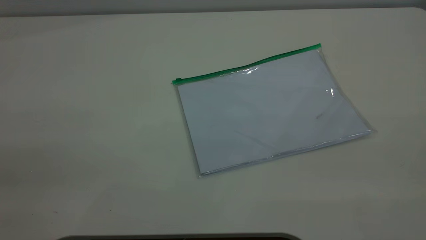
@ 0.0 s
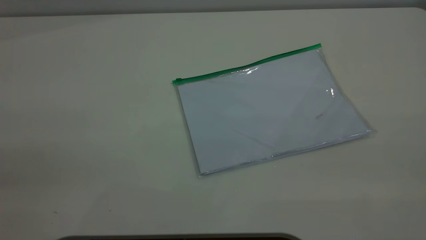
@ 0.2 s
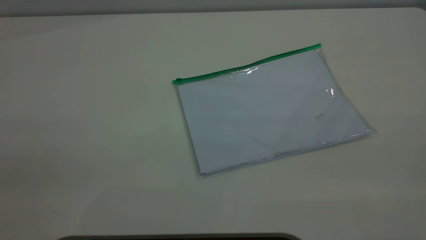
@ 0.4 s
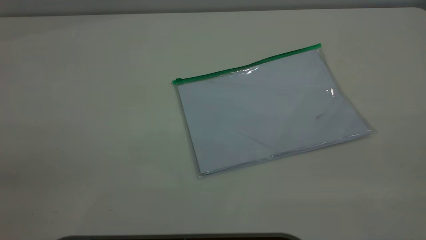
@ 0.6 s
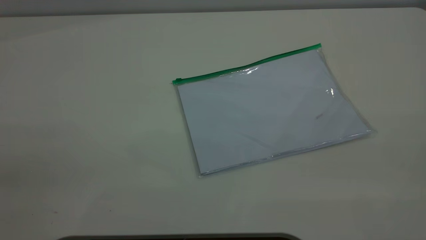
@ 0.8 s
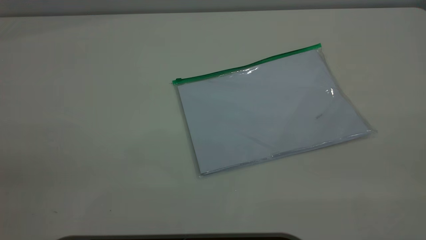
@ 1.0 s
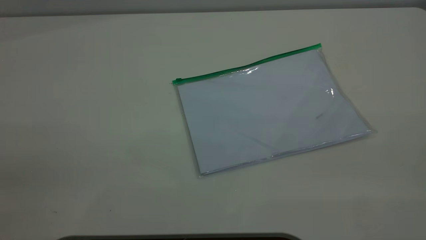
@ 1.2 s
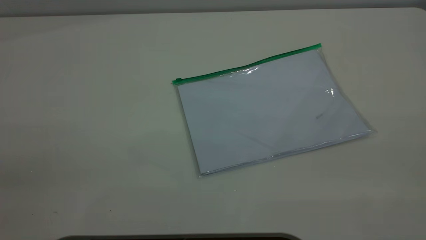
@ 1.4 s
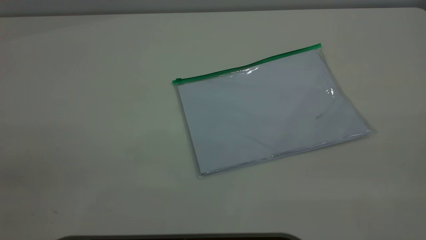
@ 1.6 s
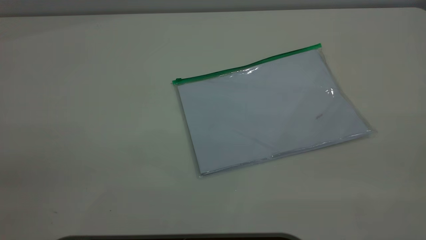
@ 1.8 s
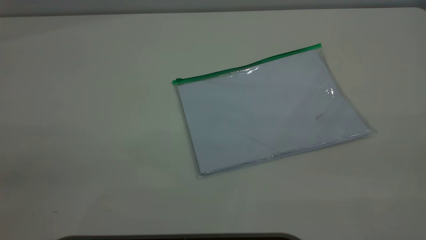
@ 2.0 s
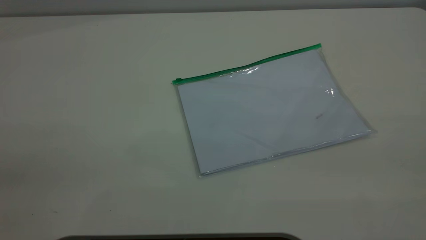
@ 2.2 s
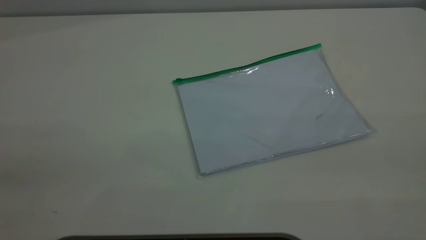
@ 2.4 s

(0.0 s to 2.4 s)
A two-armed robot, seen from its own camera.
1.2 s - 2.4 s: Both grippers stay about where they are.

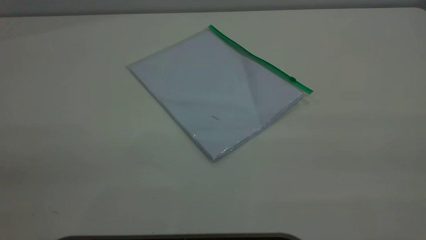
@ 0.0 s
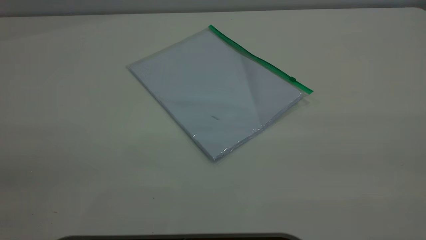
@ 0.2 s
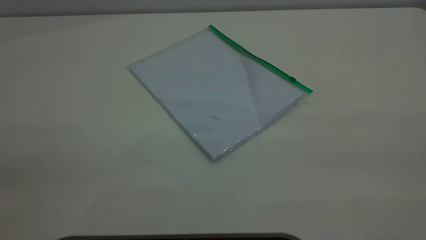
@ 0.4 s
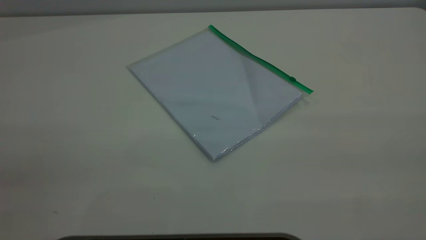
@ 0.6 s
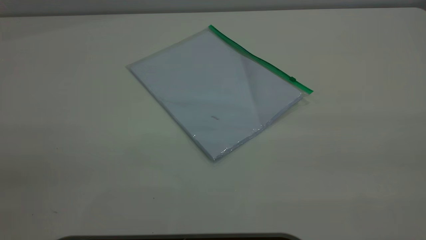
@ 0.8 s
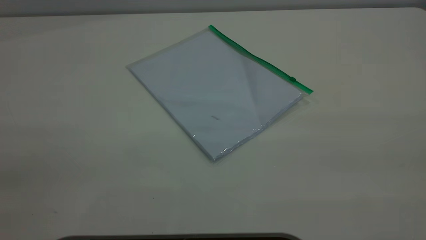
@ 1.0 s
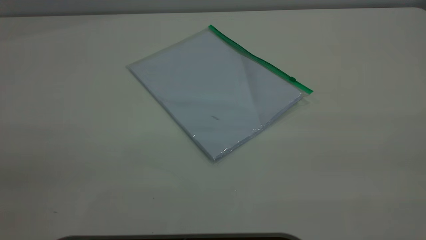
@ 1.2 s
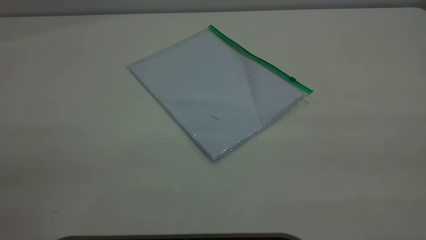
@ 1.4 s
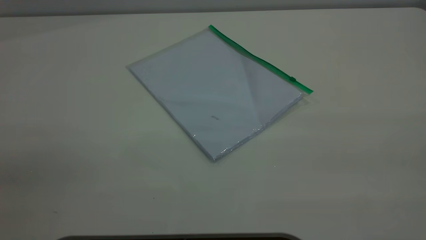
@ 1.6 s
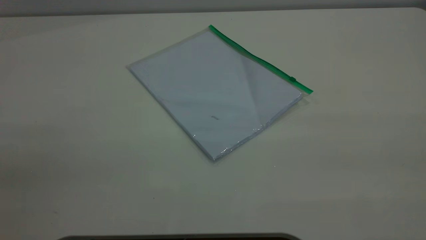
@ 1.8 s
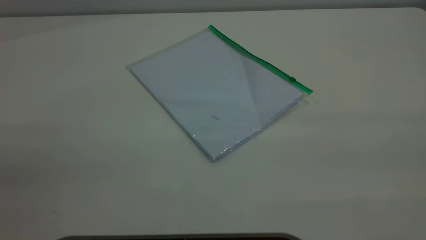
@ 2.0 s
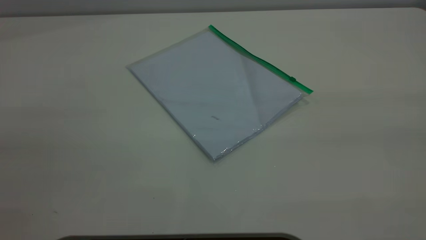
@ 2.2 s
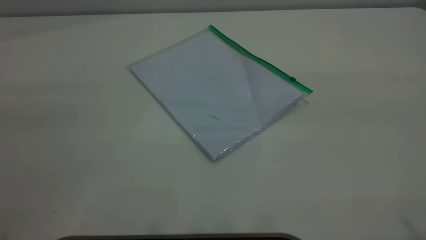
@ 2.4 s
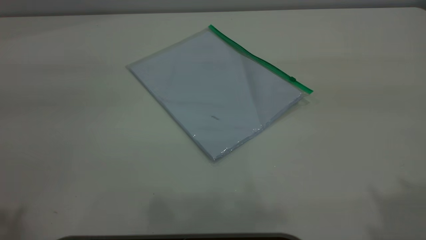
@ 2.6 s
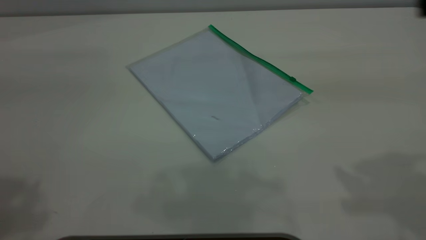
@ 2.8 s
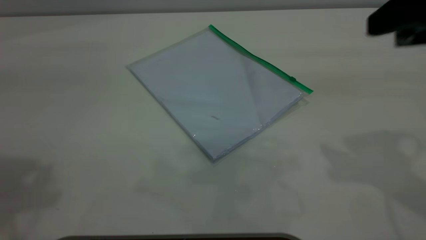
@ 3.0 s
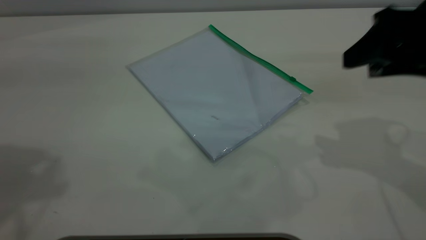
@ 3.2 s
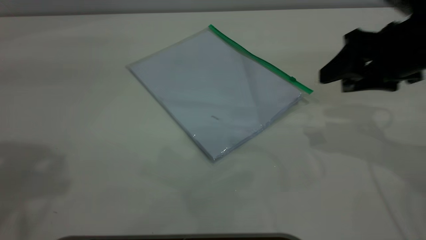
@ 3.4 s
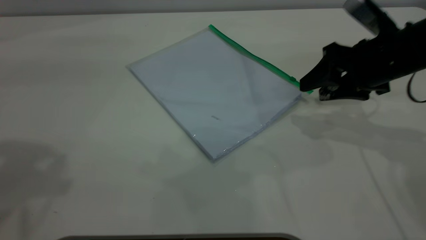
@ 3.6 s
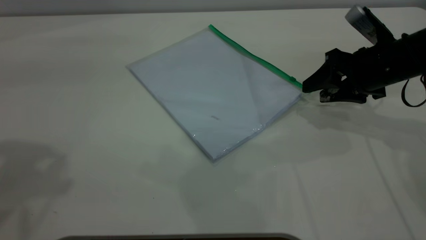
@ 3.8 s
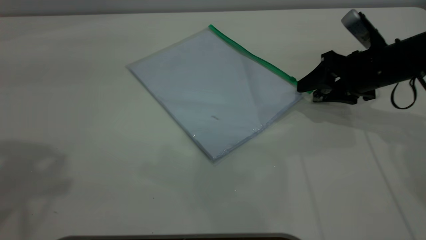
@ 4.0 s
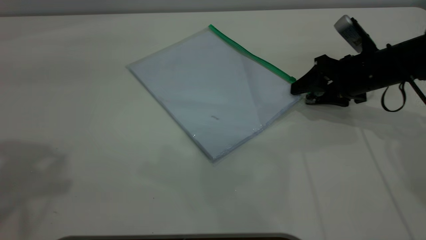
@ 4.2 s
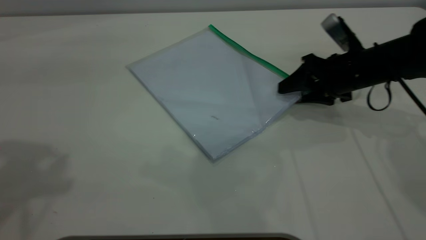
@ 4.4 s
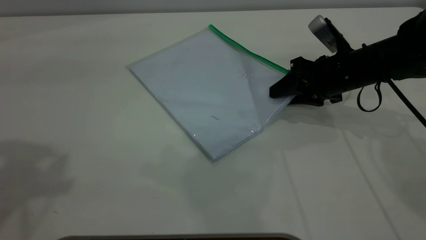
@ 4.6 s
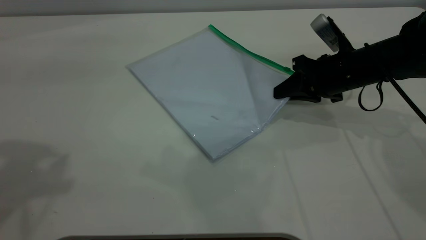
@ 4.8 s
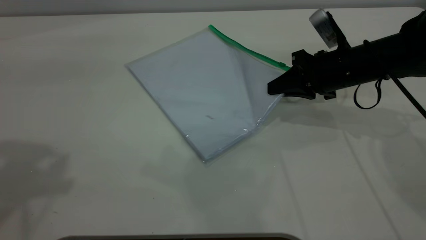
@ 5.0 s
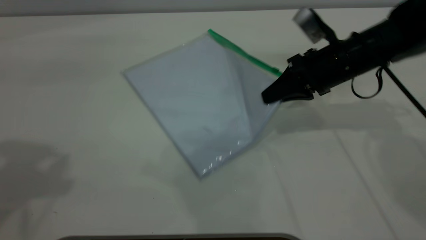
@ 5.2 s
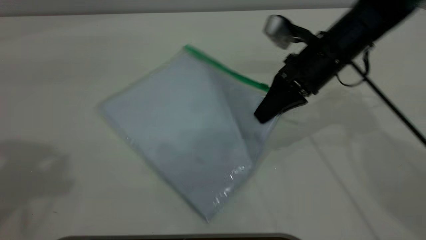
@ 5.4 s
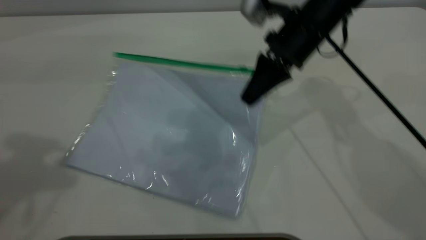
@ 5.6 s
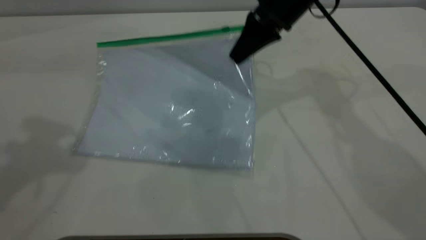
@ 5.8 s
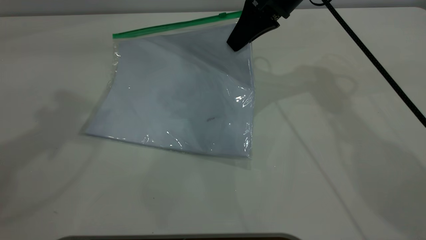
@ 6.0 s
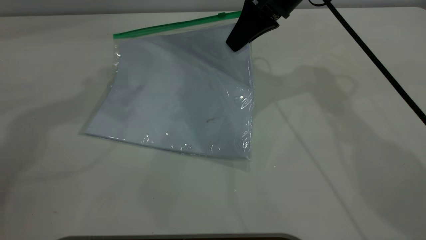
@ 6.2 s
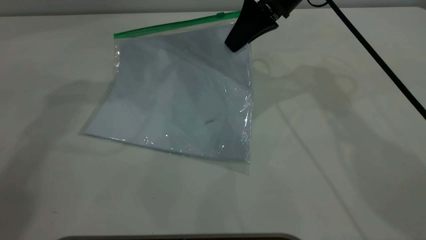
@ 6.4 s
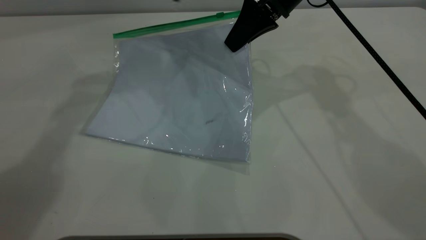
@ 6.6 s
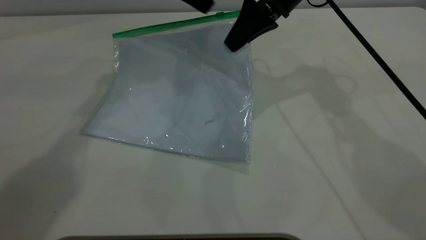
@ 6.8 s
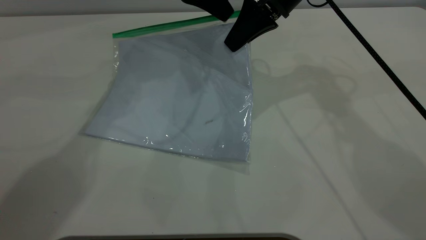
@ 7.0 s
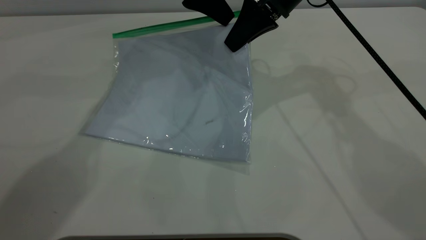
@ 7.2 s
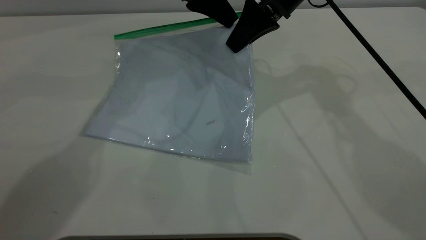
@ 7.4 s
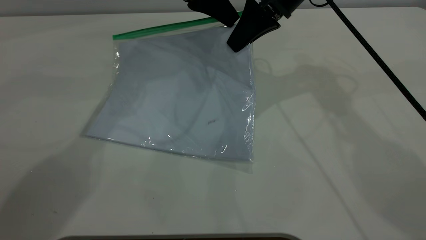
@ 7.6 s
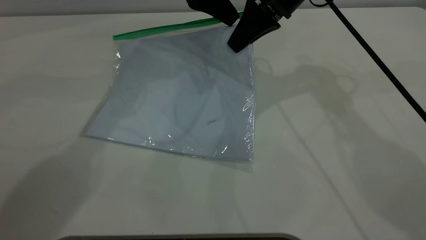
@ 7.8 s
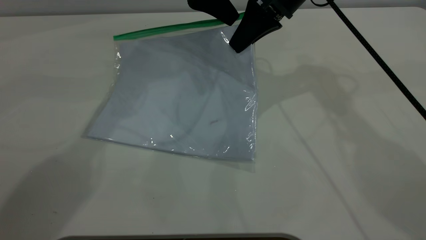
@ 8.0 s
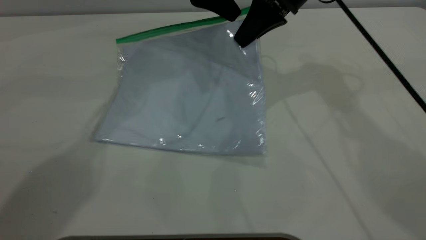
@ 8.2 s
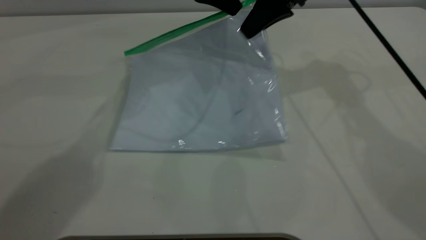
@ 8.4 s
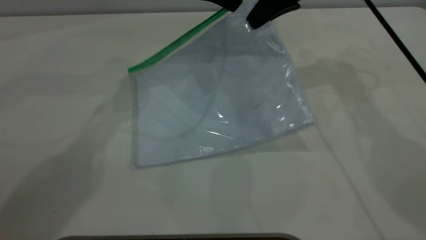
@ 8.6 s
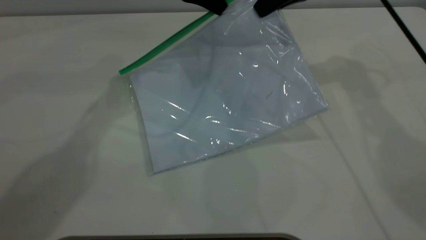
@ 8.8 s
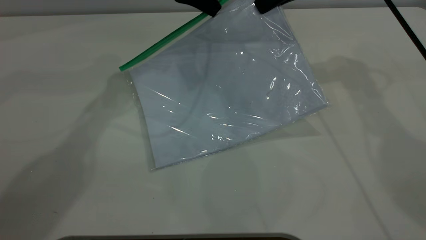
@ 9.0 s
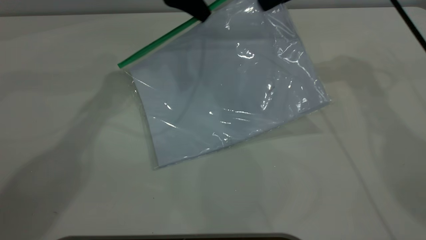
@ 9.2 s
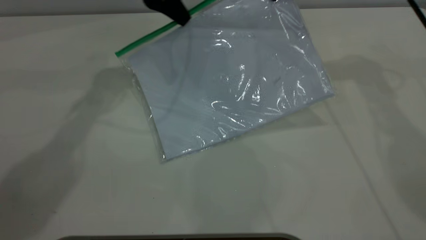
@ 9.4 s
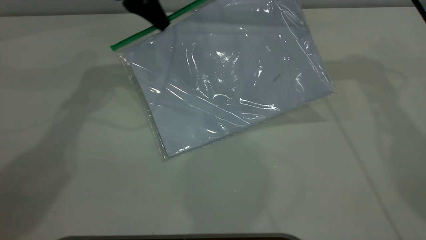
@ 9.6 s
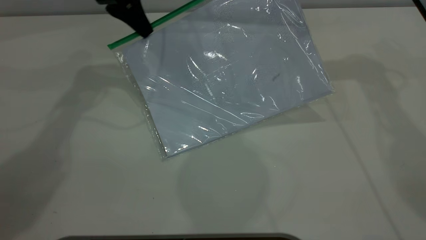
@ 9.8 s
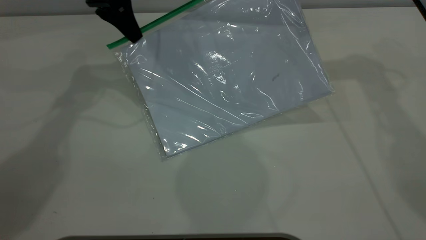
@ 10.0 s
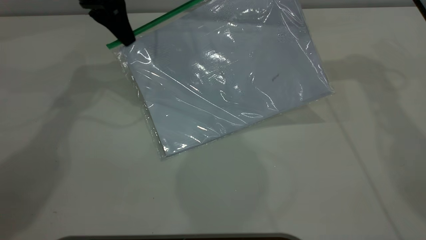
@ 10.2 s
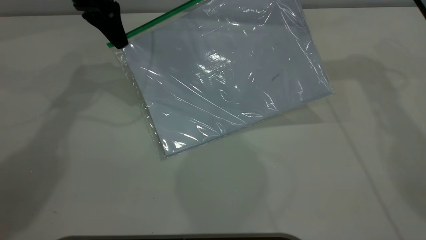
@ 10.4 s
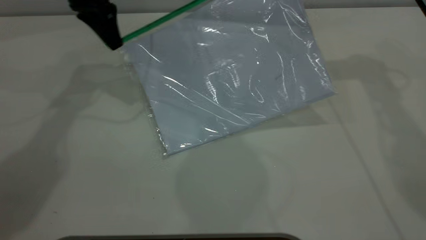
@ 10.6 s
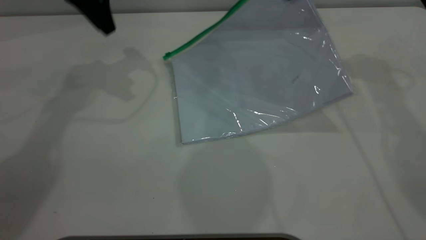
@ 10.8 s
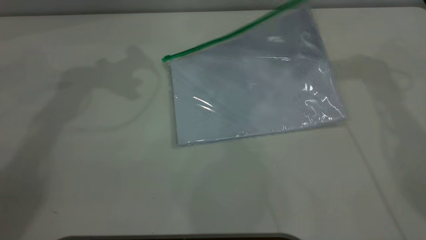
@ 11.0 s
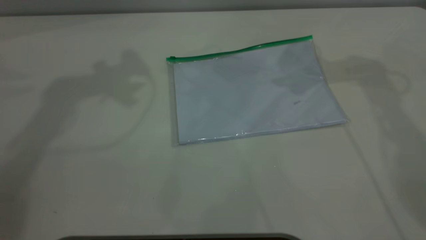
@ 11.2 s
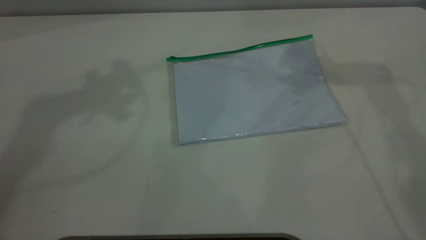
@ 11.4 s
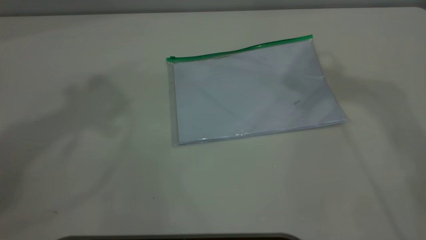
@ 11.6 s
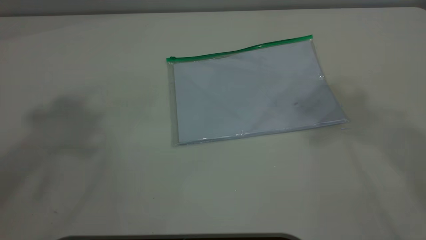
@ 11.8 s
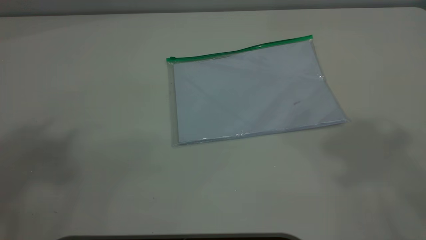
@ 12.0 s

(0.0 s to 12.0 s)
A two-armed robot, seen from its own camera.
Step, 0.0 s - 5.2 s: Pick up the transparent plastic bag with the right gripper.
Step, 5.4 s - 10.6 s: Pulling up the zipper on the transparent plastic bag with the left gripper to close it.
Step, 10.8 s - 11.0 s: Place the transparent plastic bag.
0.0 s - 1.6 s: The two grippers keep their place.
1.6 s - 3.0 s: The right gripper heads forward and downward, covering approximately 25 cm.
3.0 s - 4.4 s: The right gripper heads downward and forward, covering some 25 cm.
4.4 s - 6.0 s: The left gripper is displaced forward by approximately 10 cm; the right gripper travels upward, to the left and forward by some 20 cm, and closes up.
6.0 s - 7.6 s: The left gripper is displaced to the right, downward and forward by roughly 25 cm, and closes up.
7.6 s - 9.0 s: The left gripper closes its fingers; the right gripper goes roughly 5 cm to the right.
9.0 s - 10.4 s: The left gripper travels to the left by about 10 cm.
10.4 s - 12.0 s: The two grippers go roughly 50 cm upward and backward. The left gripper opens up; the right gripper opens its fingers.
